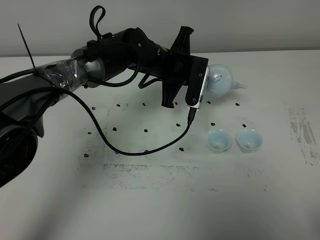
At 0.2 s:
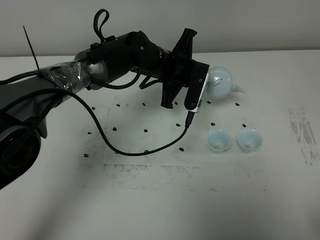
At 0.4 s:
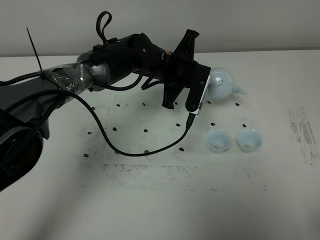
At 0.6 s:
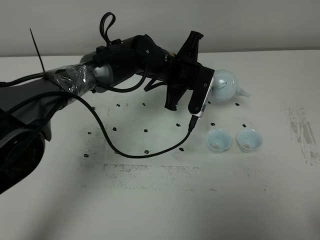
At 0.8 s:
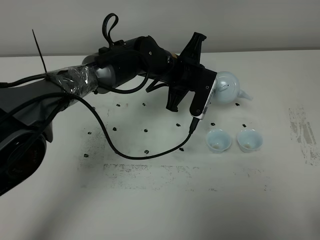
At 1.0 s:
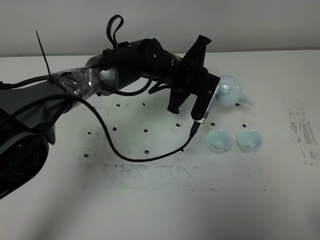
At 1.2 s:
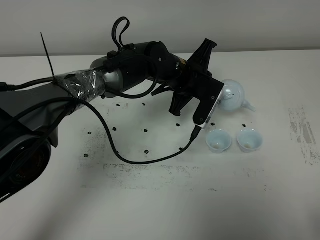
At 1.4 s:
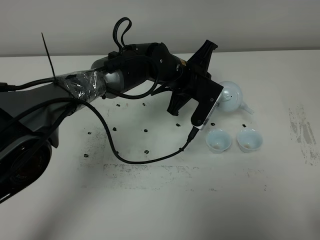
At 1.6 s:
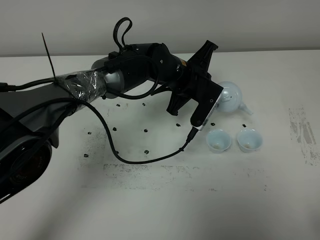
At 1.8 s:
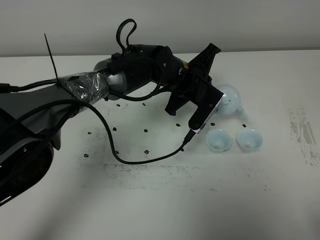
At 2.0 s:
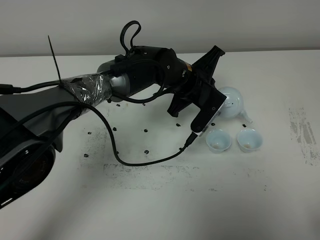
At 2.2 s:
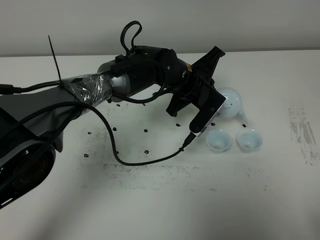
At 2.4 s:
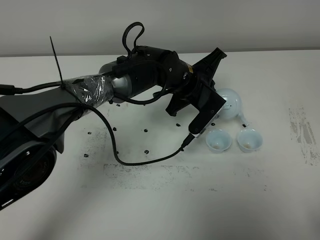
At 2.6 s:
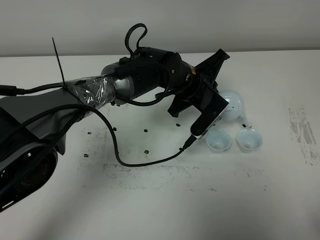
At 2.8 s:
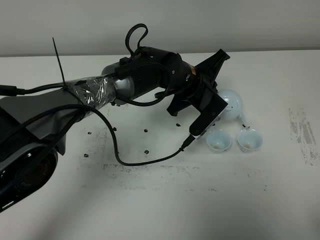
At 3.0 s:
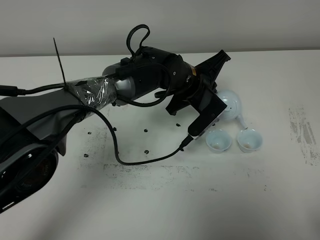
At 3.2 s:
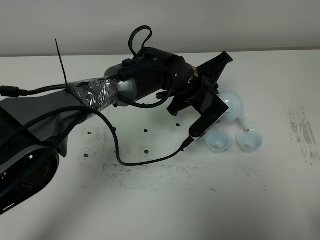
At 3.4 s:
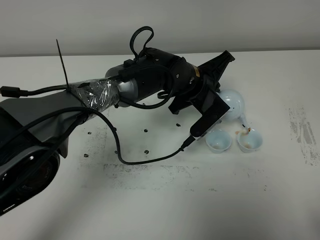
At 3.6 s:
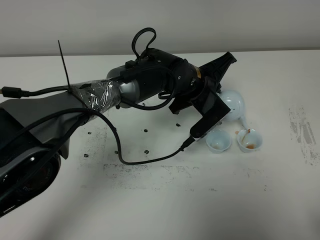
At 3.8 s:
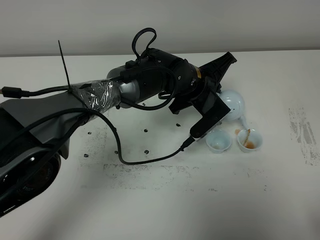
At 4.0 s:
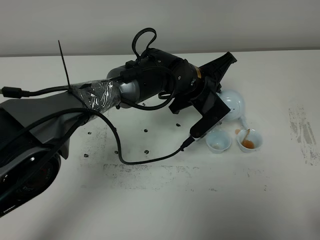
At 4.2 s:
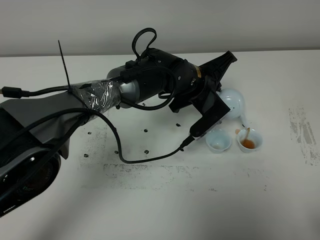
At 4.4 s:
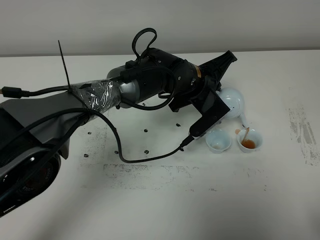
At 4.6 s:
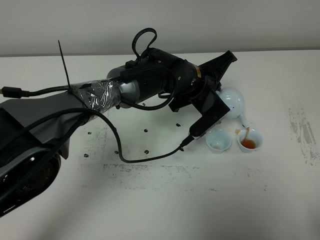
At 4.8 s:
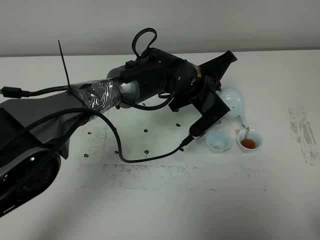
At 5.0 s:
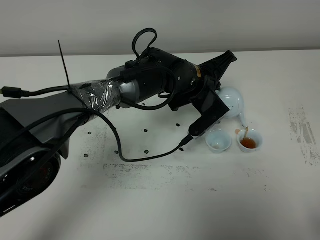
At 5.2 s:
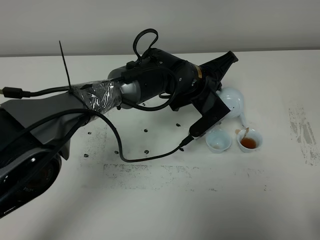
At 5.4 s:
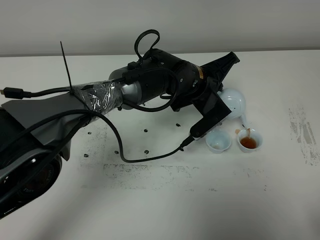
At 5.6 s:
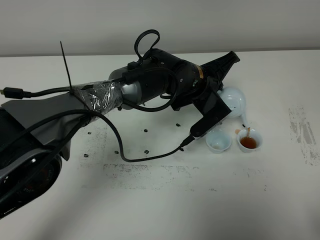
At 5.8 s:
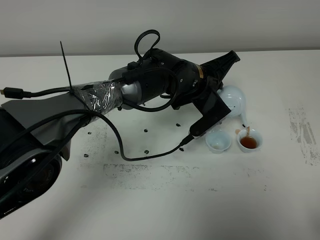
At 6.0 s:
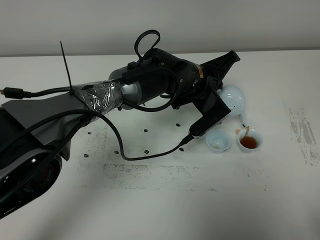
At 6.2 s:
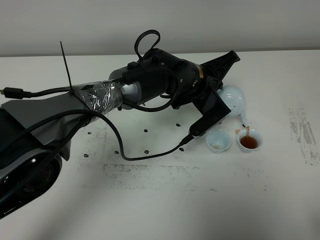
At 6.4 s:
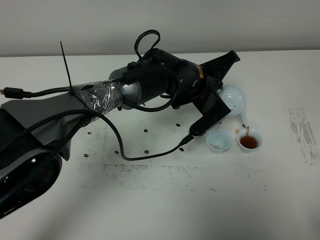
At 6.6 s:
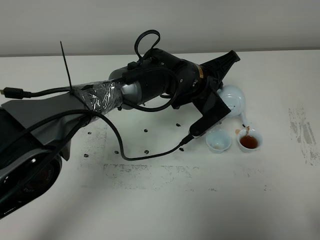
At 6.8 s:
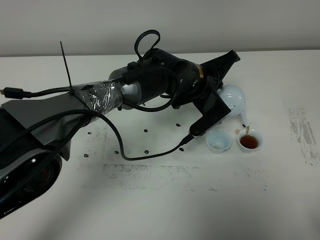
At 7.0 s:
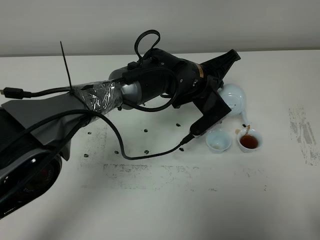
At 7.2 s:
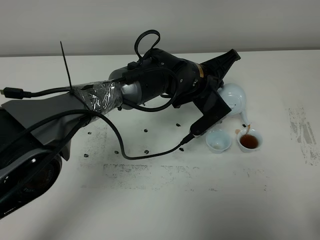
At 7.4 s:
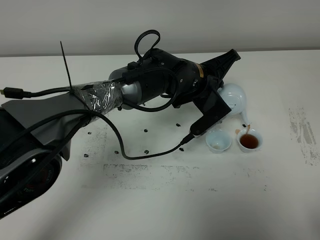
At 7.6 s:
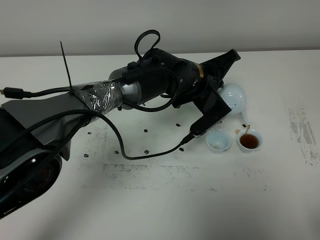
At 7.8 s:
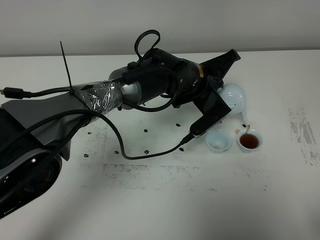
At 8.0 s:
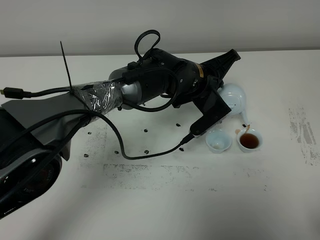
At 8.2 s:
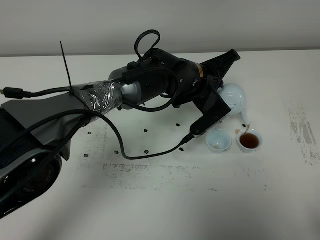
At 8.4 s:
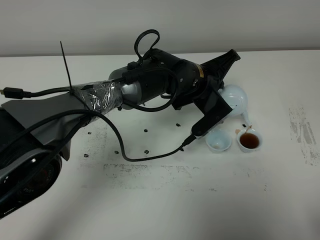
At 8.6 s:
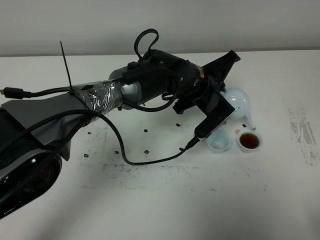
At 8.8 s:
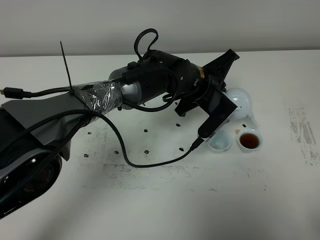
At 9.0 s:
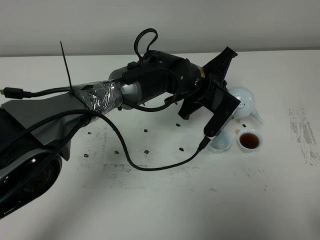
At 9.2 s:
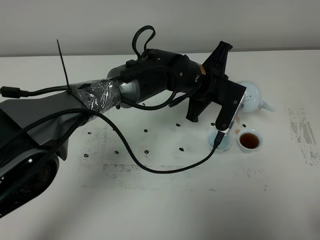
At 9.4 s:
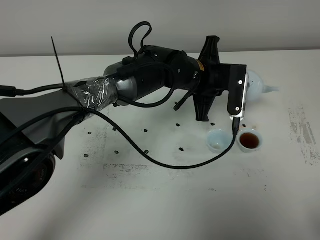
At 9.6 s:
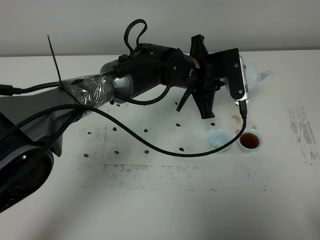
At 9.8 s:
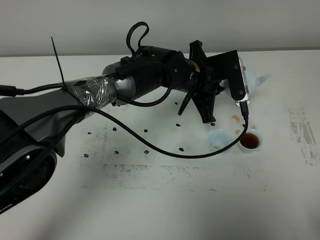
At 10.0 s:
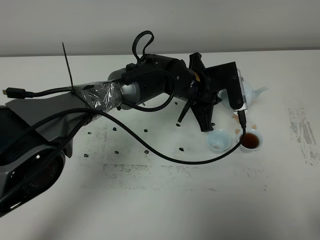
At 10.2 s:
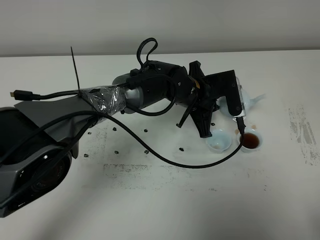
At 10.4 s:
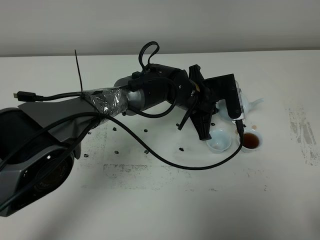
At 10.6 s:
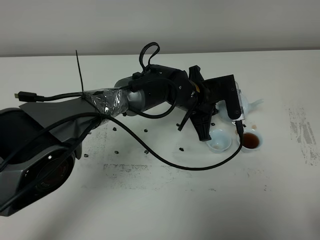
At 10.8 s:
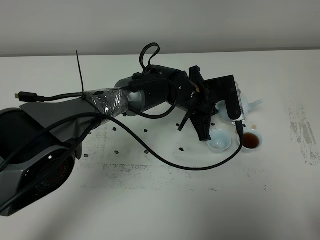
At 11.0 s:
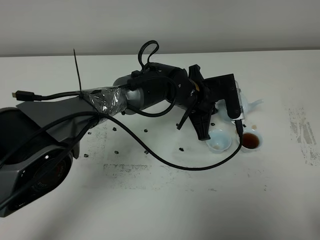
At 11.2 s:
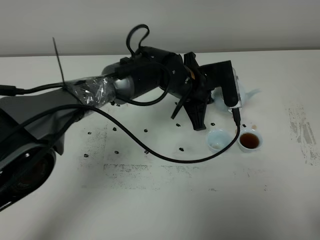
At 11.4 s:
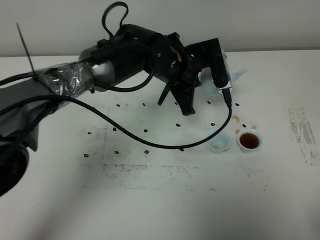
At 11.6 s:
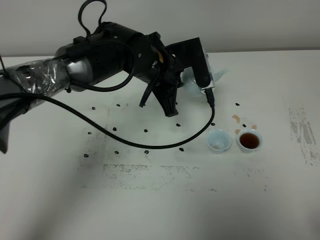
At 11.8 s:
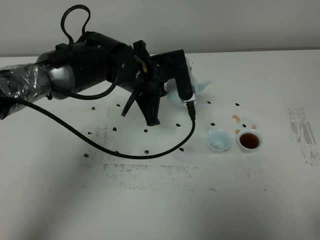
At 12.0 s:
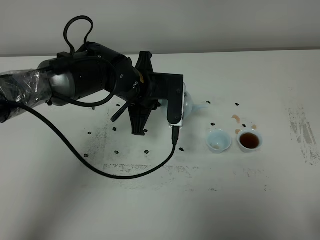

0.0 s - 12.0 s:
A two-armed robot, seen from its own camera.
Task of the whole recording: grasp the blue porcelain teapot and pour the tea into the two blue porcelain teacups one by one, put the blue porcelain teapot back in its original place.
Step, 0.0 s - 8.8 s: Pour tea into the teacup with the left gripper.
0.0 s - 1.6 s: There are only small adjustments of the grippers.
1.6 s - 4.4 s: The grippers move only a little.
4.4 s - 7.6 s: Both grippers stay put.
7.6 s - 9.0 s: The grippers stay close to where they were, moving slightly.
10.4 s - 12.0 s: The left gripper heads to the left and upward, covering approximately 10 cm.

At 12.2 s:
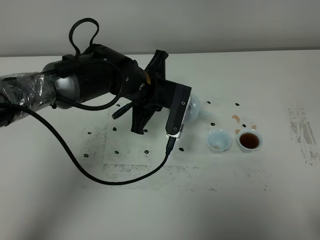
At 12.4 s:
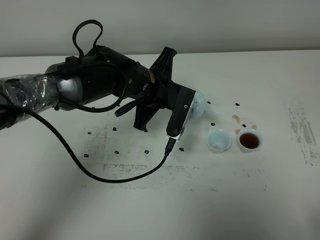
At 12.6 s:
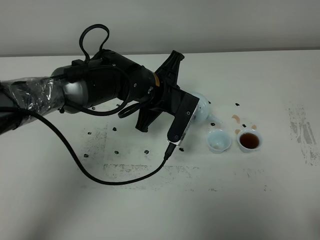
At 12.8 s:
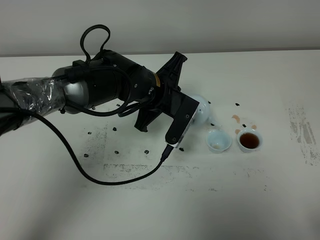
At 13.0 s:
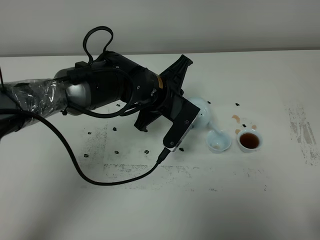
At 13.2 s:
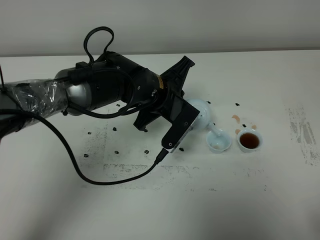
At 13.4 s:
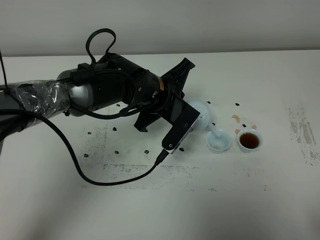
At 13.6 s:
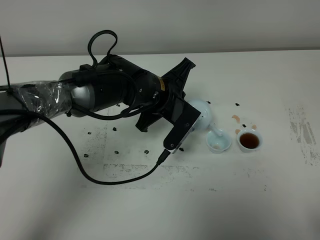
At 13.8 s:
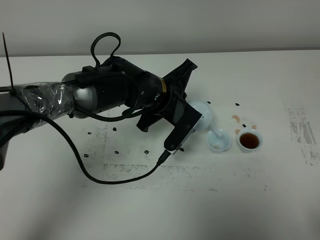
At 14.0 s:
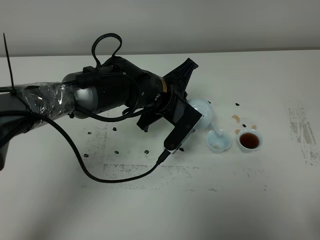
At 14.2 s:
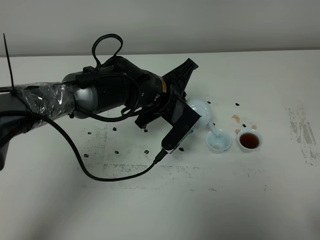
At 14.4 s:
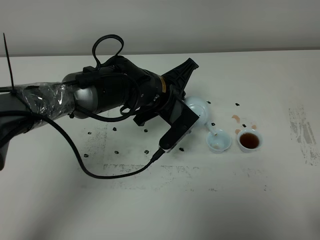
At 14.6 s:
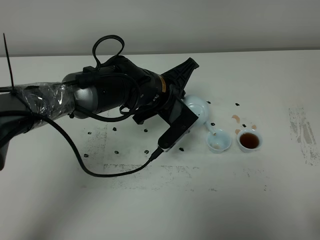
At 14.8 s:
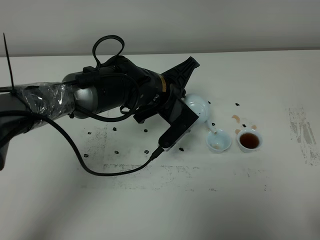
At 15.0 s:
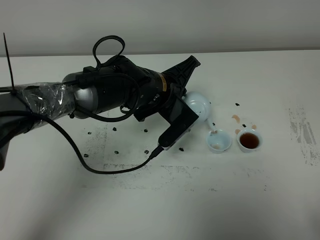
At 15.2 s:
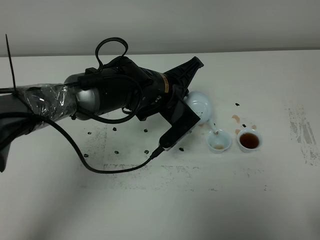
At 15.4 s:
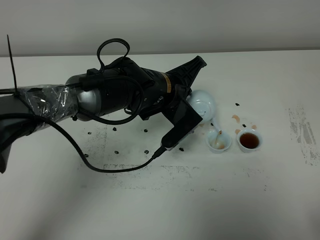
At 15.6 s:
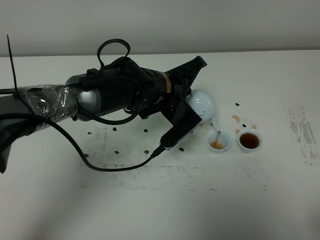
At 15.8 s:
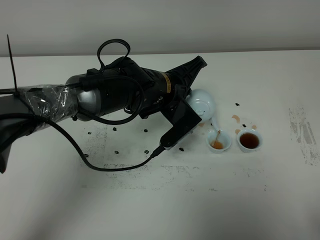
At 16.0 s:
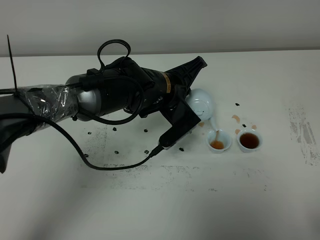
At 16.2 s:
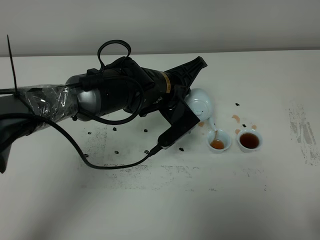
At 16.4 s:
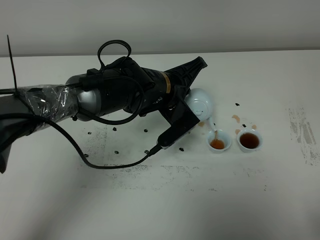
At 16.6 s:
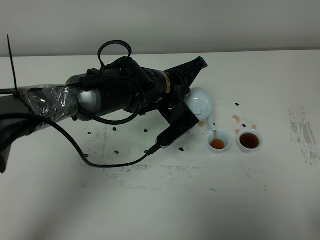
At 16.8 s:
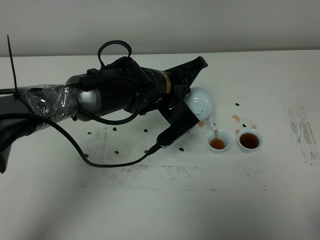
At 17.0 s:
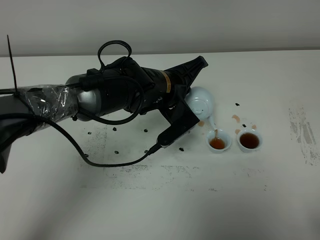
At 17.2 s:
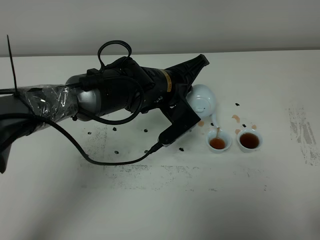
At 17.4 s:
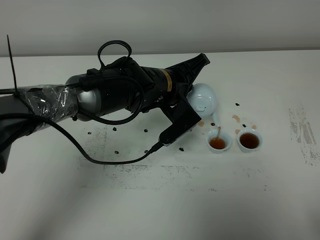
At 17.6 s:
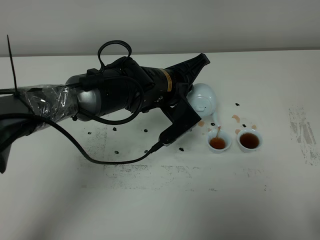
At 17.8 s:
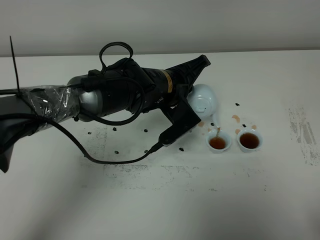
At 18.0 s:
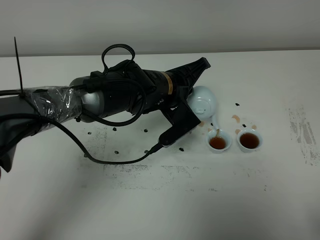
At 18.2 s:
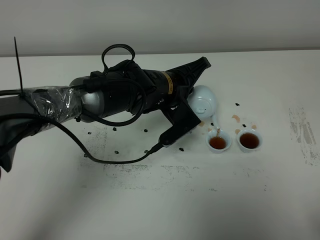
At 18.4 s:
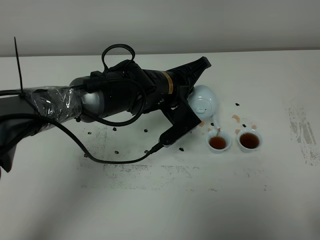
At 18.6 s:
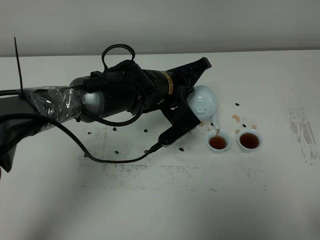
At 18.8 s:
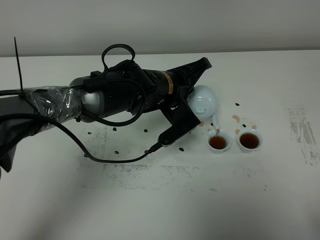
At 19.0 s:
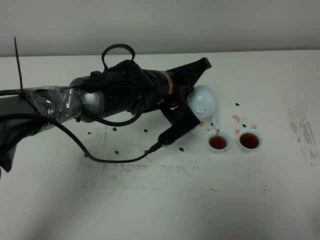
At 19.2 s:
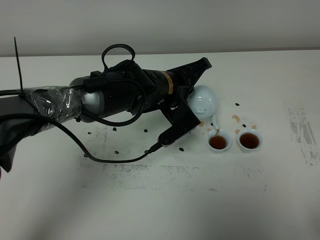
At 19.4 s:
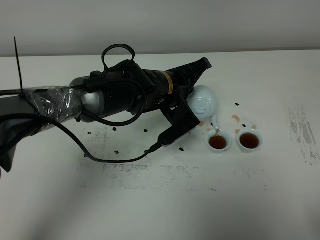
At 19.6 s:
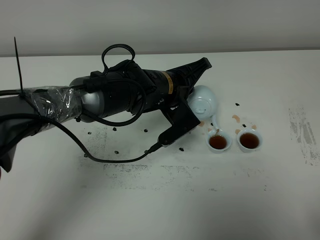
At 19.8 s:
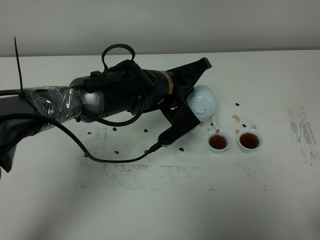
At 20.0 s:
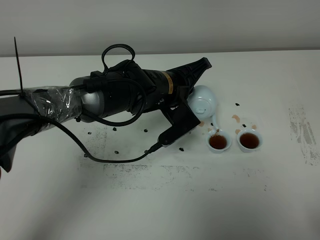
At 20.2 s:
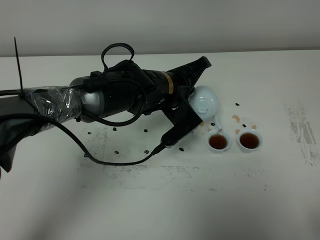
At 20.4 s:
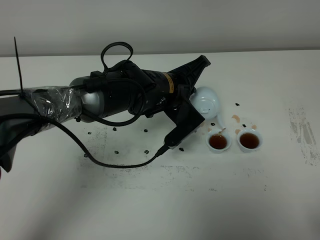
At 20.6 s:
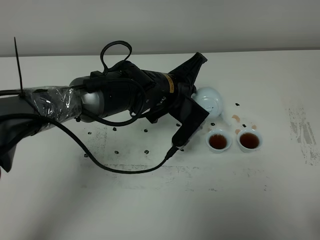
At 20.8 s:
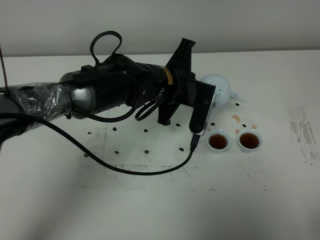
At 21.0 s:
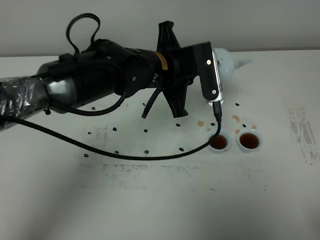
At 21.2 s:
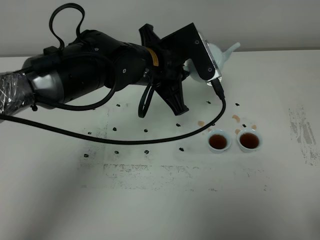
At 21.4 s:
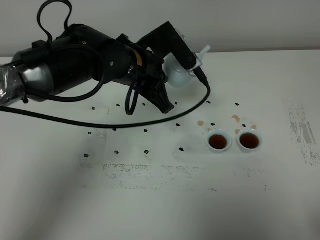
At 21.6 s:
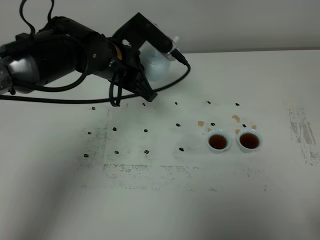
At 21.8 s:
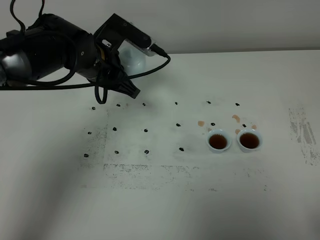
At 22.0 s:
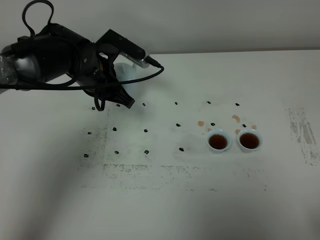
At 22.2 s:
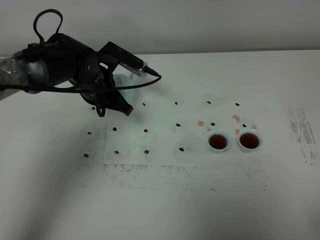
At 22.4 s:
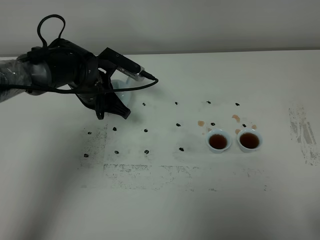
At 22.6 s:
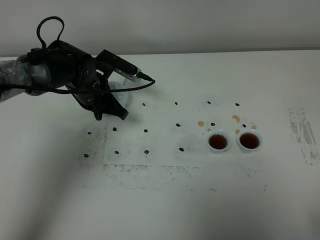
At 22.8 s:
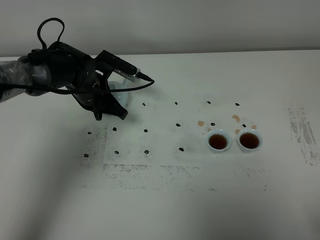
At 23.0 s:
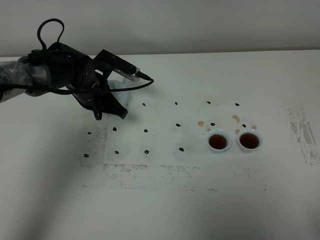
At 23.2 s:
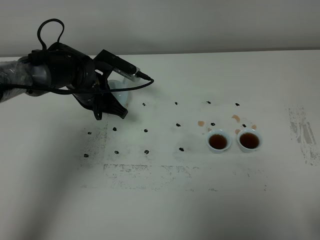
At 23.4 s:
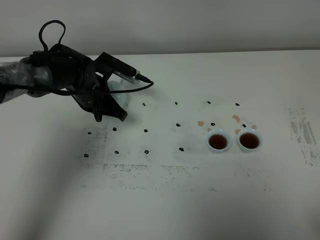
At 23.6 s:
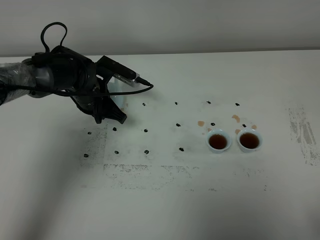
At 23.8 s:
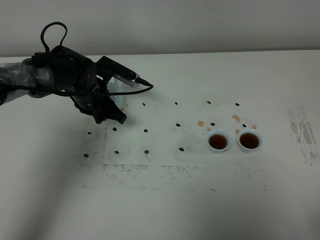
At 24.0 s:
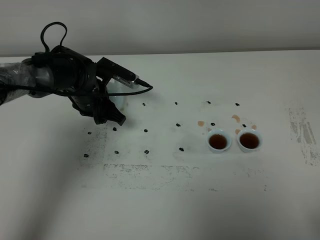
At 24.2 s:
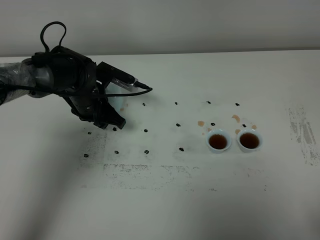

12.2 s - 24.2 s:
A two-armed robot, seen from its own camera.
Task of the whole recording: grasp the blue porcelain teapot and pour the tea into the two blue porcelain teacups one by one, put the blue porcelain teapot back in its original place.
Step, 12.2 s - 20.4 s: Pour tea into the teacup with the left gripper.
13.8 s - 16.6 s: The grippers move only a little.
16.6 s - 19.8 s: Both grippers stay about where they are.
19.8 s - 21.2 s: The left gripper travels upward by some 5 cm.
21.2 s - 22.6 s: The left gripper moves to the left, downward and forward, roughly 15 cm.
22.6 s - 24.2 s: The left gripper opens up.
